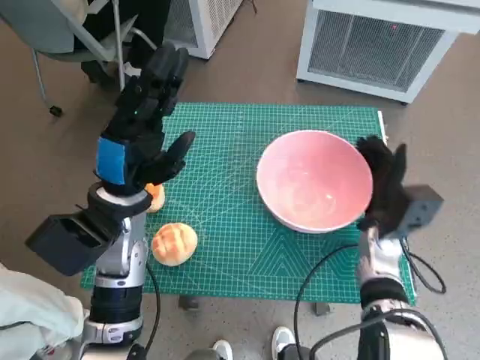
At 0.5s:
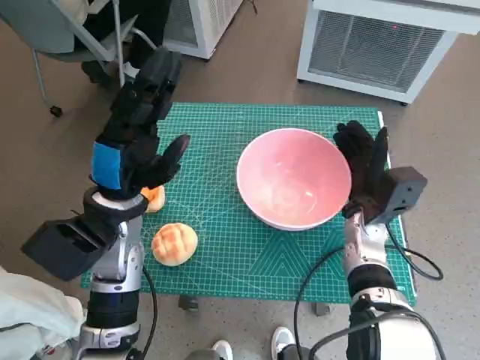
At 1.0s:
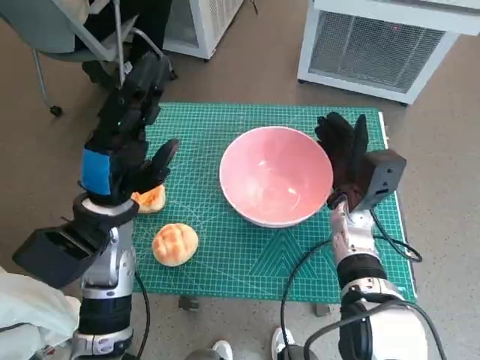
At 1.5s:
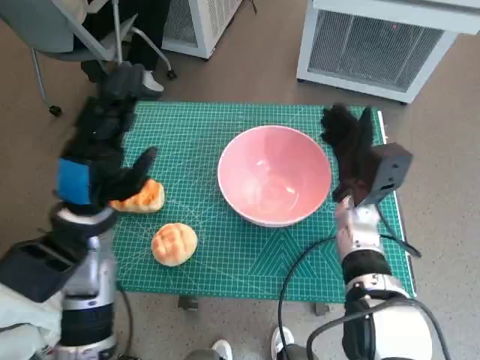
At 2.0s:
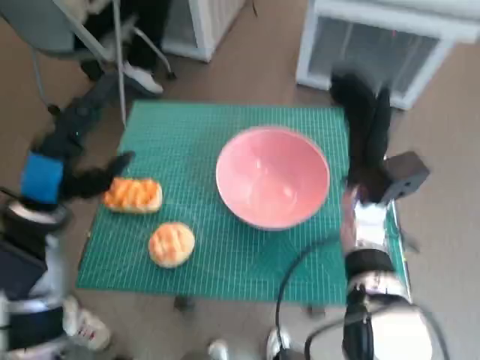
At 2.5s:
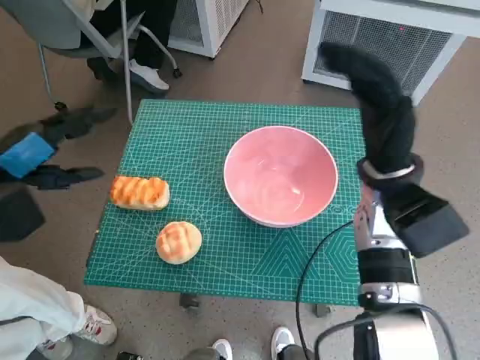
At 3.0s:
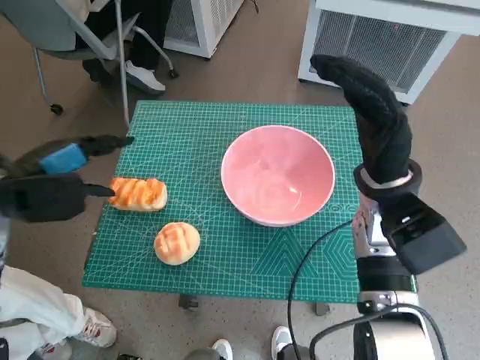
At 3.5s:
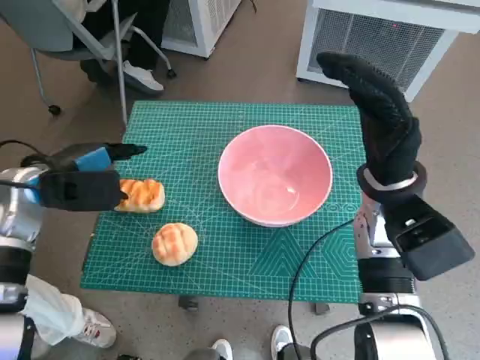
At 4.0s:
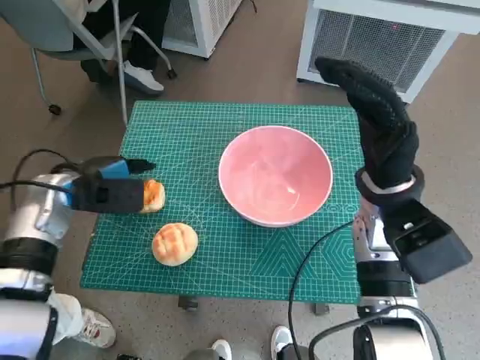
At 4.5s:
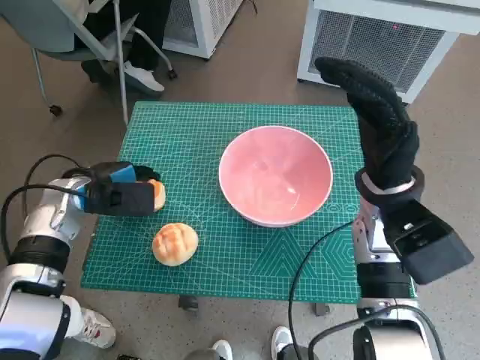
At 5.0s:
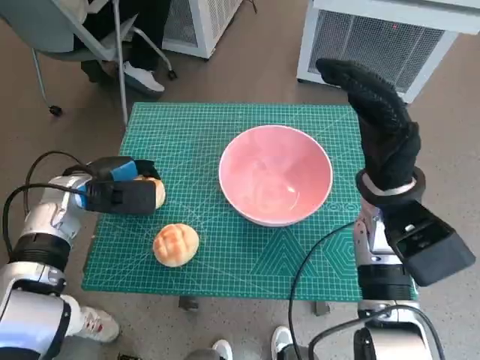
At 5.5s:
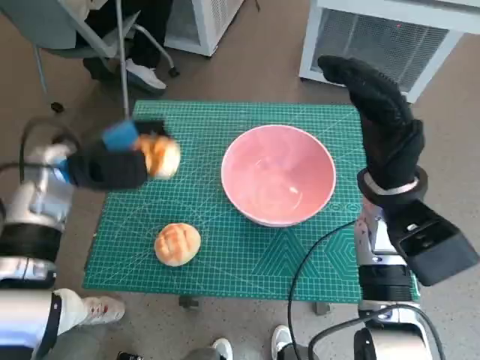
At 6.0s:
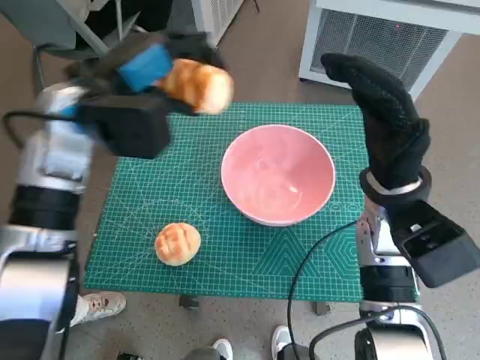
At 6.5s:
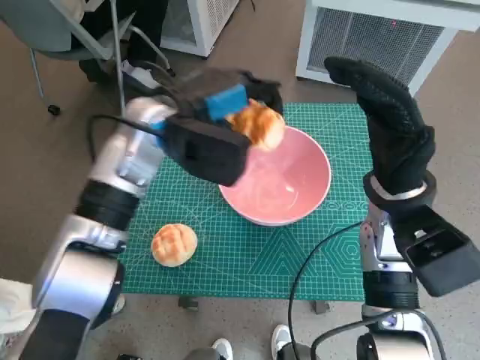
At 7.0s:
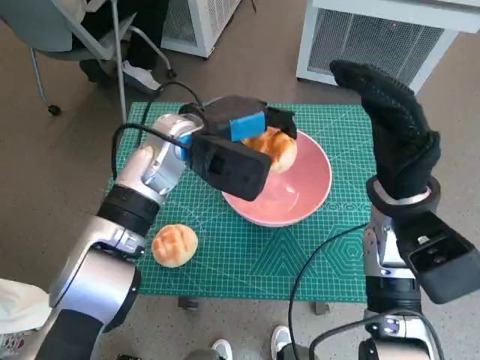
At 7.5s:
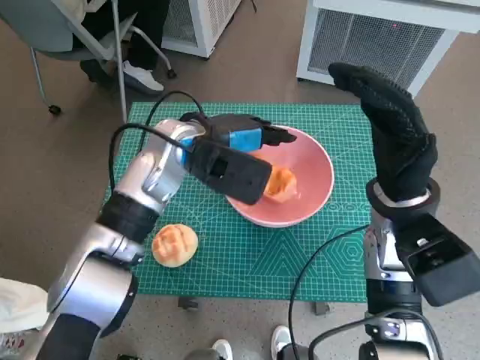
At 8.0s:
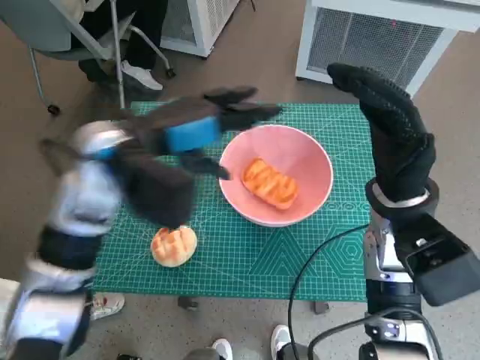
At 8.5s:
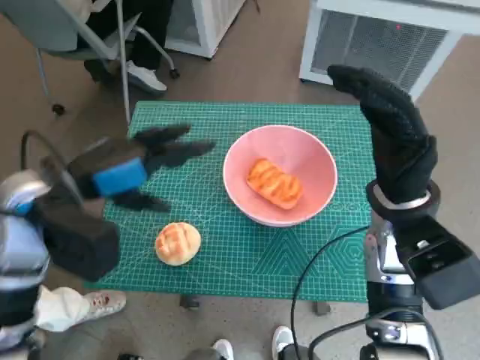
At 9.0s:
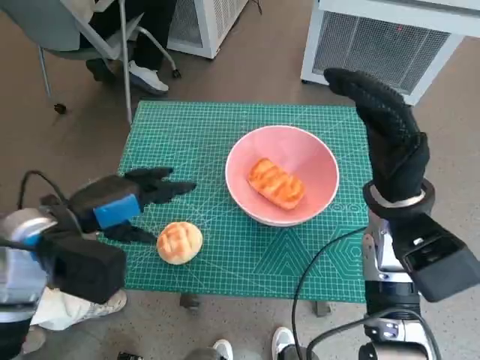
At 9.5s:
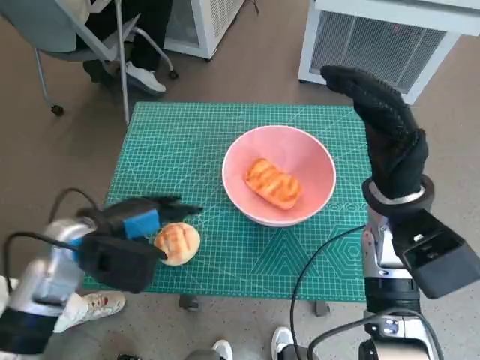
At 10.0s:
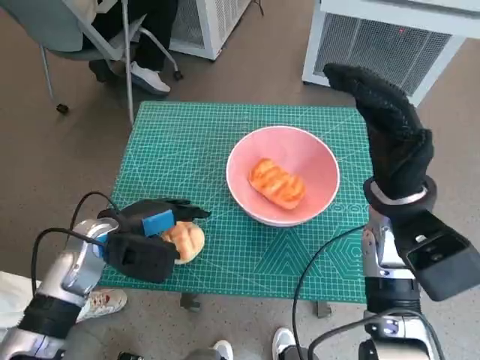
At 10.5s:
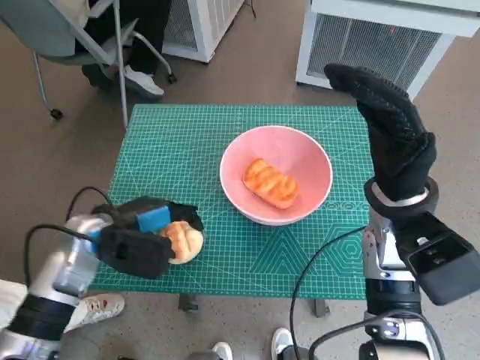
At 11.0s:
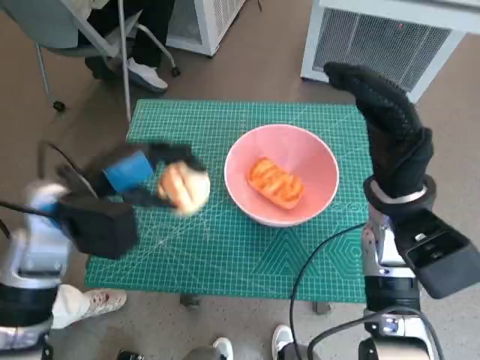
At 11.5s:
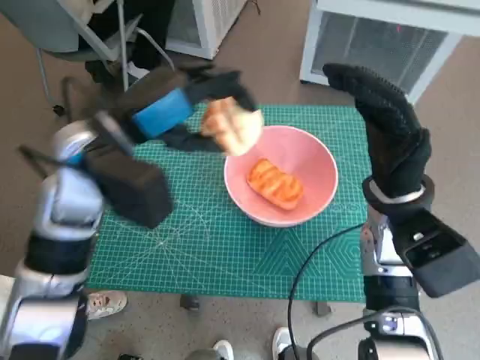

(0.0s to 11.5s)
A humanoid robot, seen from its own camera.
Task of the whole recording: Push the bowl to the center of the table and put the bread into the bowl.
Step, 2.0s - 4.5s: Grasp the long bread with left hand.
Step, 5.0s - 7.5s: Place the long bread in pink bowl with left hand.
Step, 8.0s - 10.0s: Grasp the round bread with left hand.
0.0s - 2.0s: The left hand moves to the left, approximately 10 cm. Meanwhile the right hand shifts about 10 cm upward.
2.0s - 4.0s: The left hand moves forward, some 10 cm. Meanwhile the right hand goes some 5 cm upward.
4.0s - 6.0s: The left hand shifts about 15 cm upward and to the right.
6.0s - 7.5s: The left hand moves to the right and downward, some 10 cm.
7.5s - 9.5s: The left hand heads to the left, backward and downward, covering roughly 20 cm.
9.5s - 11.5s: The left hand is displaced upward and to the right by about 15 cm.

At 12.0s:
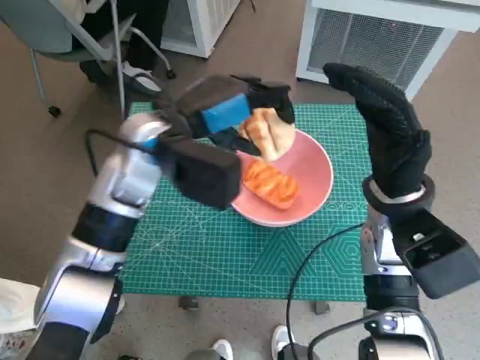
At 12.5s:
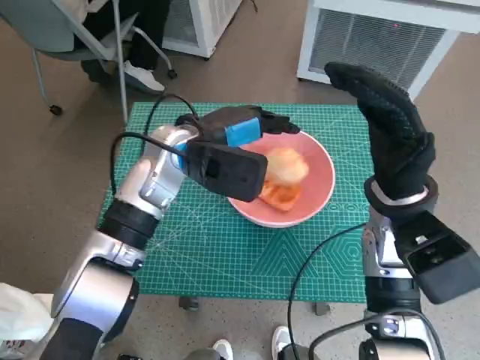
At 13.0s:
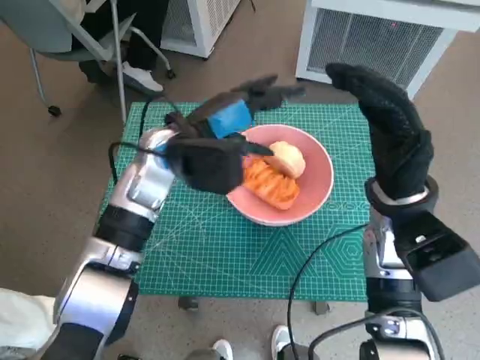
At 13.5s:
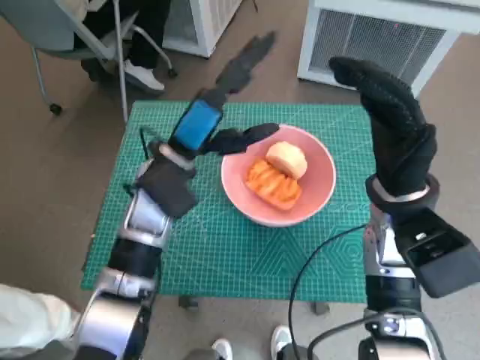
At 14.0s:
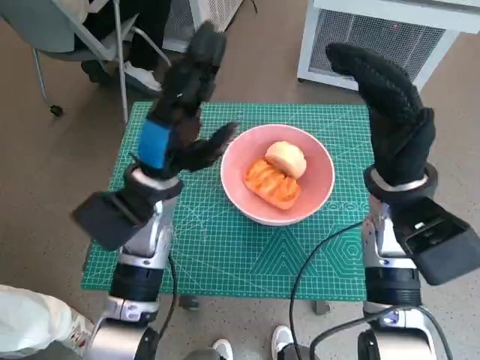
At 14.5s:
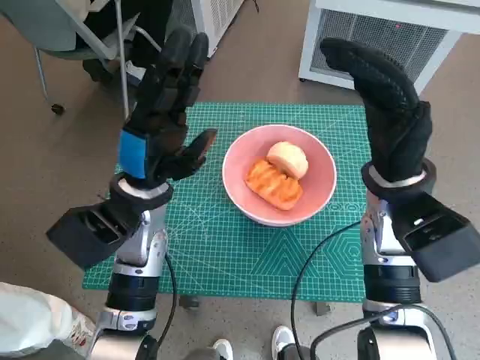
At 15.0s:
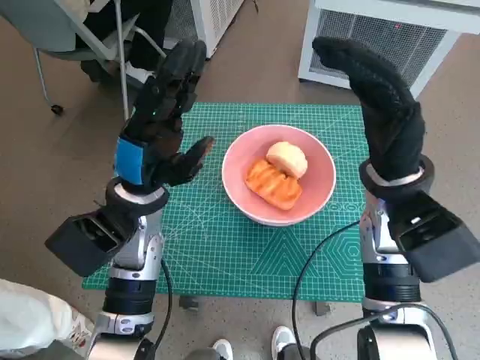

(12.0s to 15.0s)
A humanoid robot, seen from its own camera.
Task of the whole recording: Push the bowl to the center of the table and put the bread into the bowl.
12.0s - 13.5s: The left hand shifts approximately 5 cm downward.
13.5s - 15.0s: The left hand changes place by roughly 5 cm.

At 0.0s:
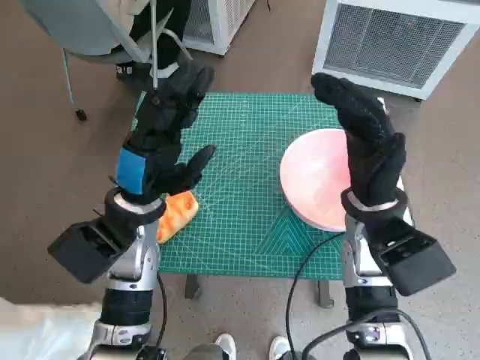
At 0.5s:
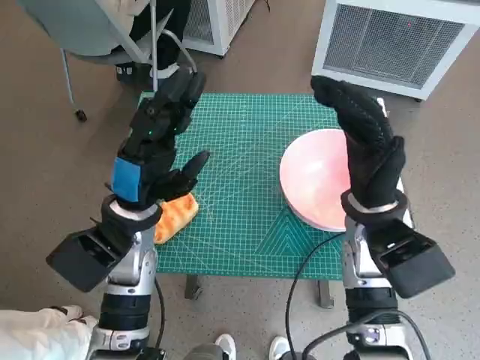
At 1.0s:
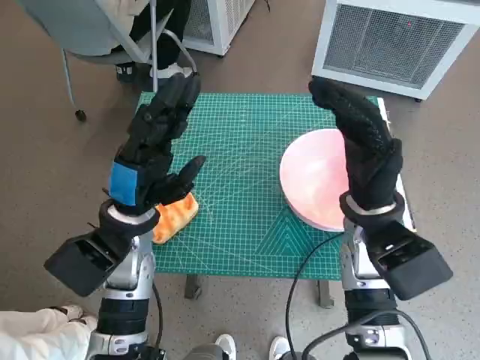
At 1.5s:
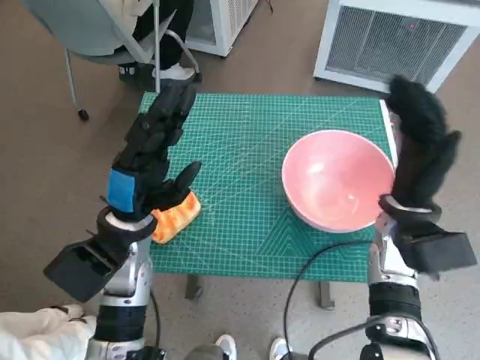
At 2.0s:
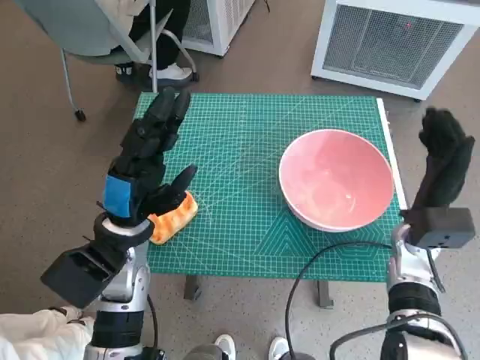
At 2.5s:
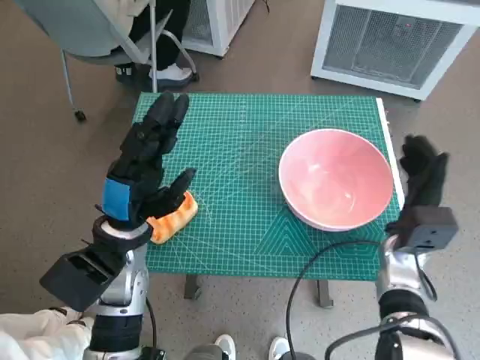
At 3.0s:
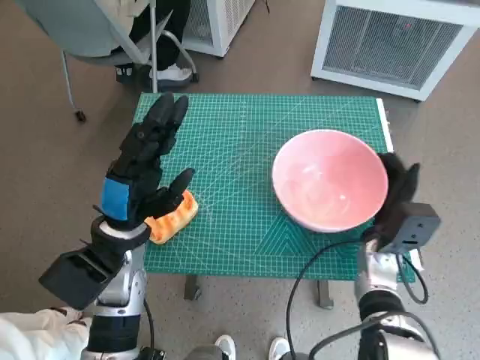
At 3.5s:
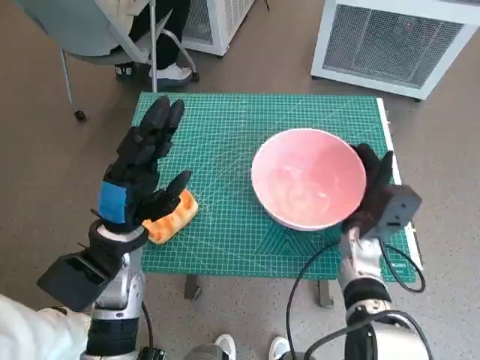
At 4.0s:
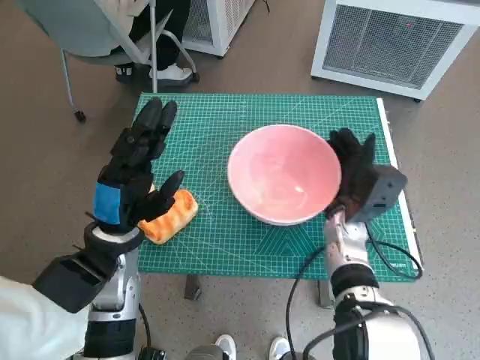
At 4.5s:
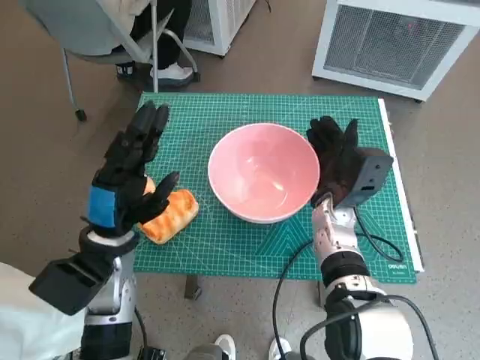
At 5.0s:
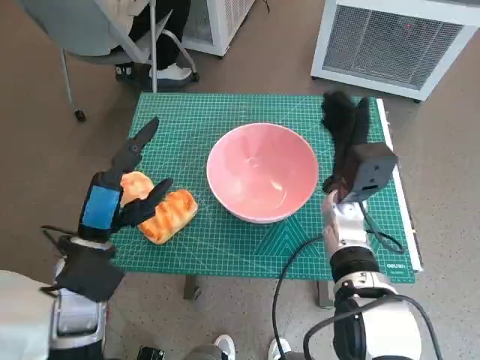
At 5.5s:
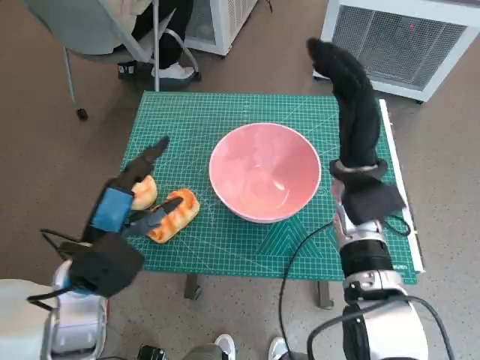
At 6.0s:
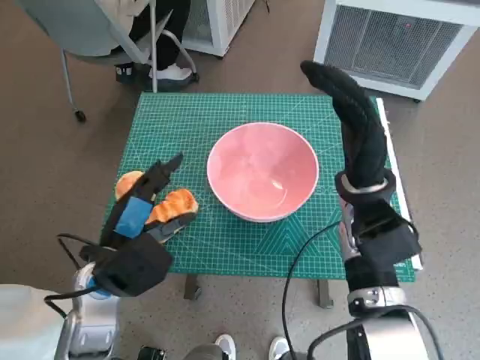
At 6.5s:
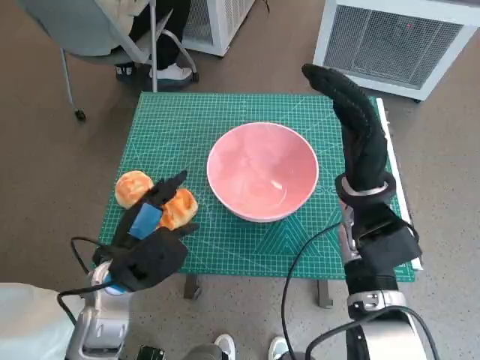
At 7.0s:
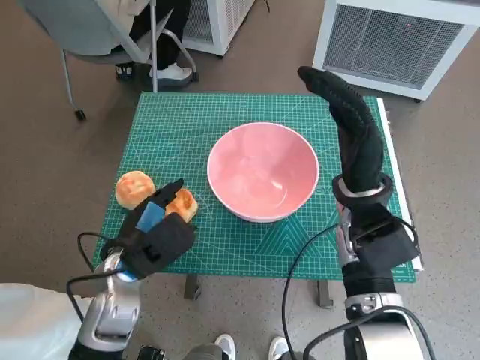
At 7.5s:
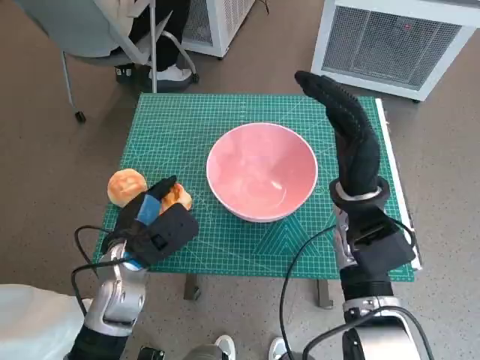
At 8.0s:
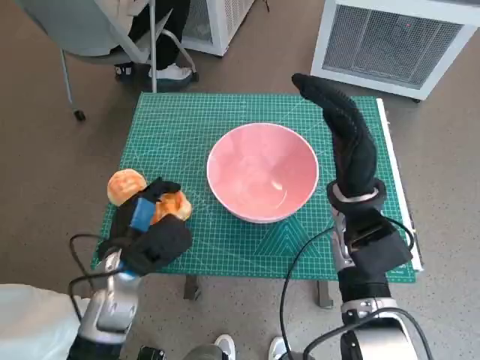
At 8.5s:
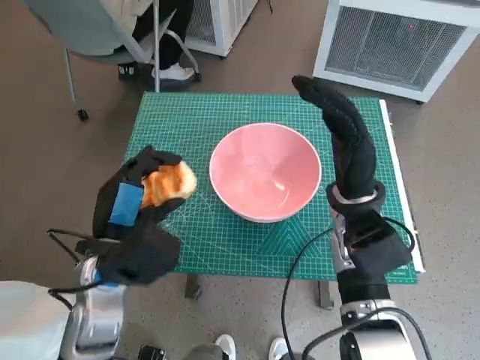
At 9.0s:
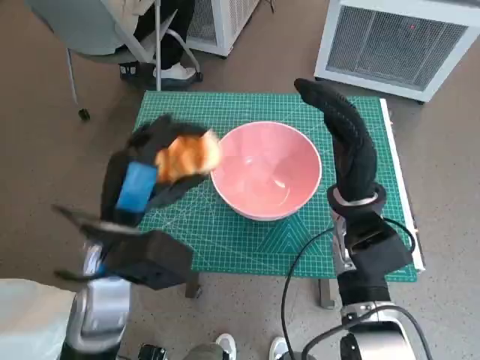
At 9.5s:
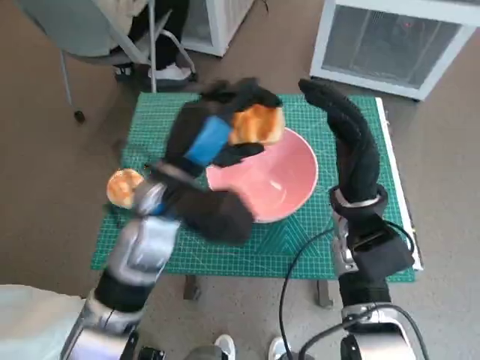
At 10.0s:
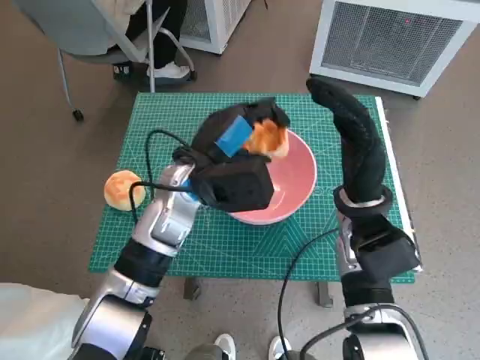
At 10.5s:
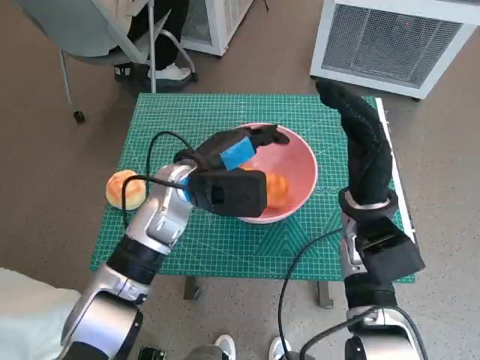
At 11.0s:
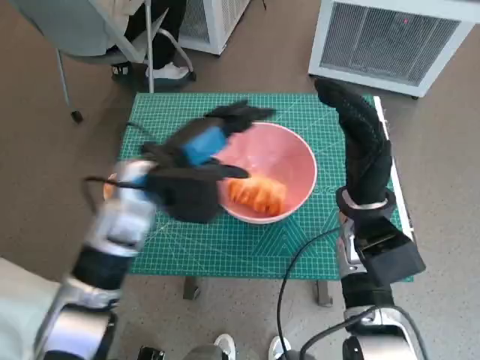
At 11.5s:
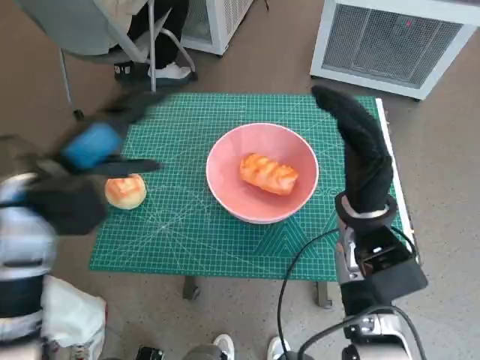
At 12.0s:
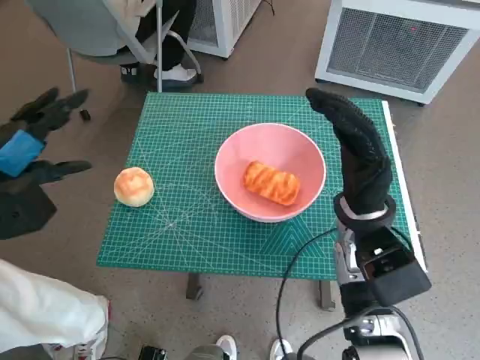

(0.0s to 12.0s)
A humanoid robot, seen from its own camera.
Task of the whole recording: Push the bowl to the center of the table and put the bread into the bowl.
Step, 0.0s - 5.0s: Move the pink bowl to the center of table with right hand.
Step, 5.5s - 7.5s: Grasp the long bread with left hand.
Step, 8.0s - 11.0s: Place the long bread in pink bowl with left hand.
2.0s - 4.0s: The right hand is displaced to the left by approximately 10 cm.
4.0s - 6.0s: The right hand is displaced upward by about 10 cm.
6.0s - 8.0s: The left hand heads downward, covering approximately 5 cm.
8.0s - 10.0s: The left hand goes some 15 cm to the right, upward and forward.
10.0s - 12.0s: The left hand is displaced to the left by some 25 cm.
